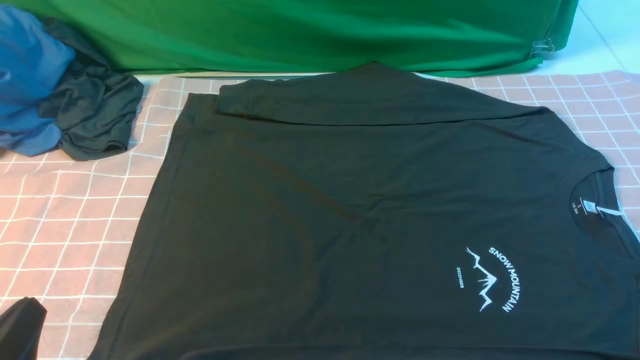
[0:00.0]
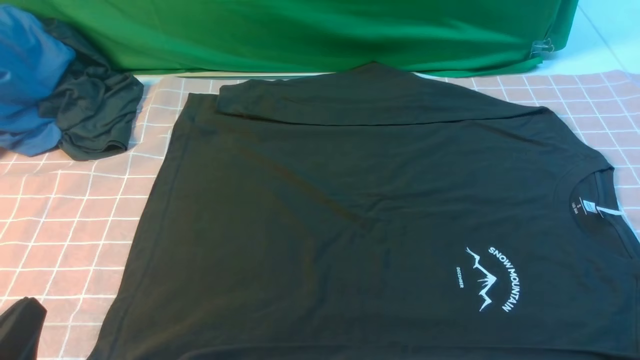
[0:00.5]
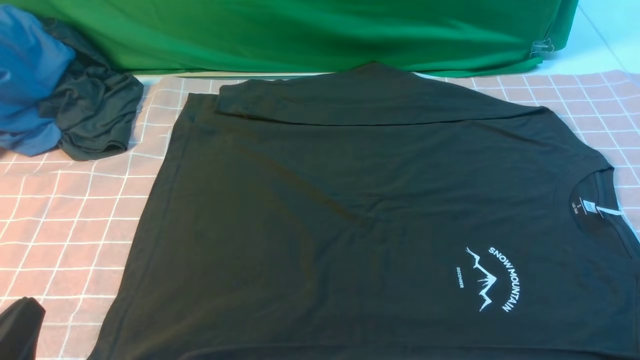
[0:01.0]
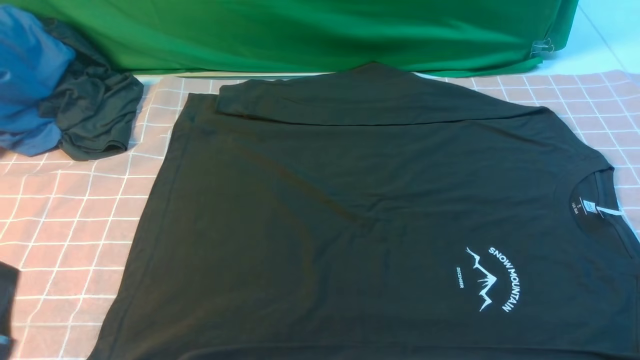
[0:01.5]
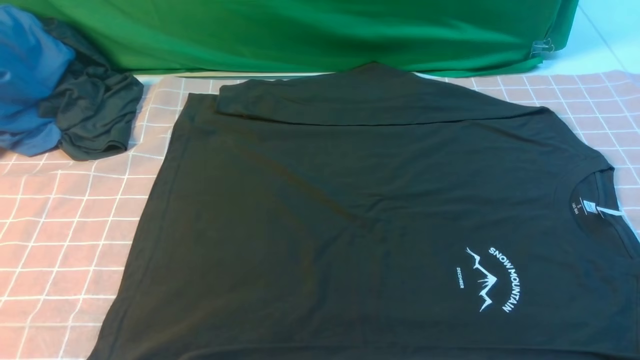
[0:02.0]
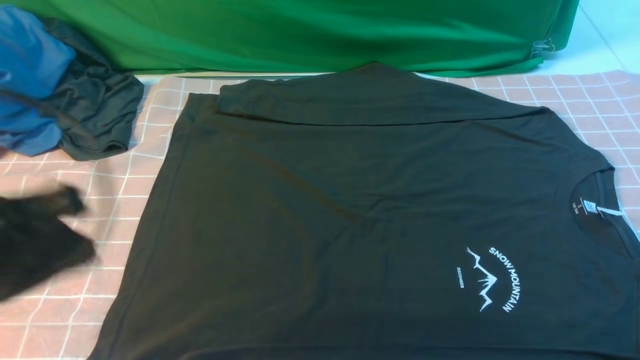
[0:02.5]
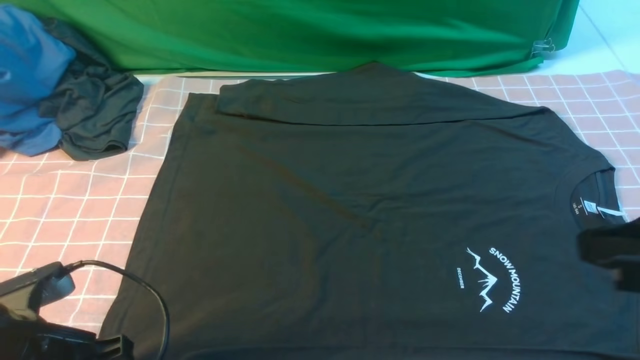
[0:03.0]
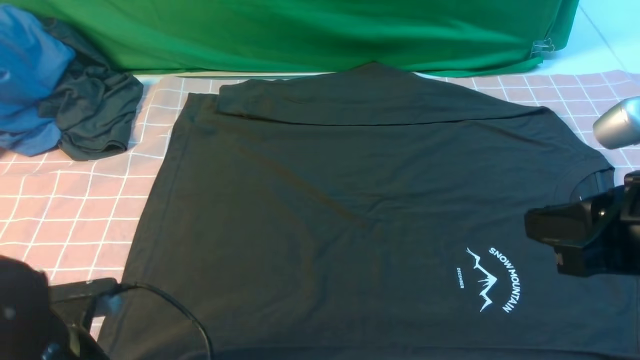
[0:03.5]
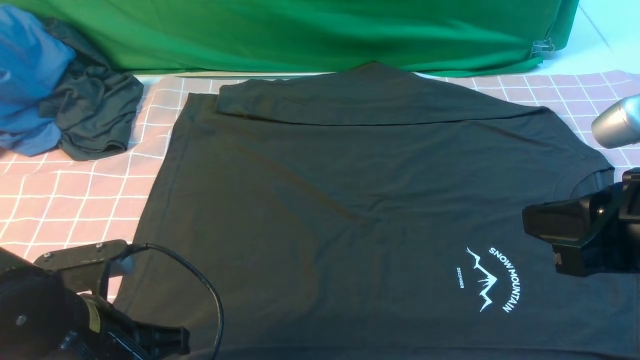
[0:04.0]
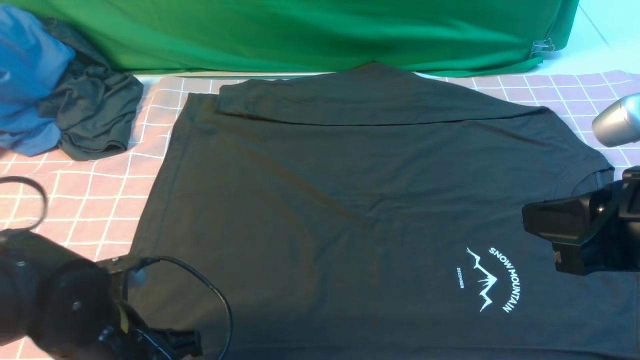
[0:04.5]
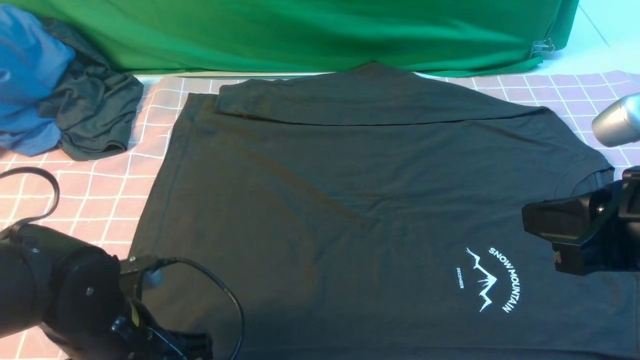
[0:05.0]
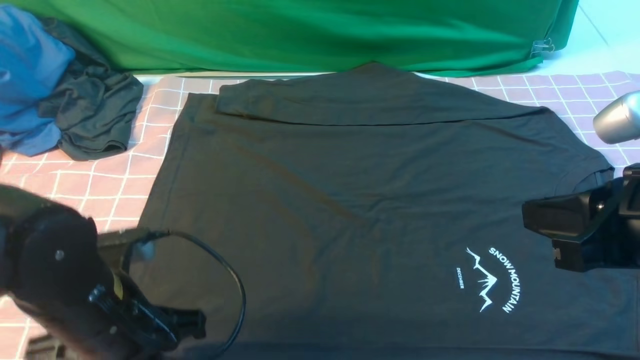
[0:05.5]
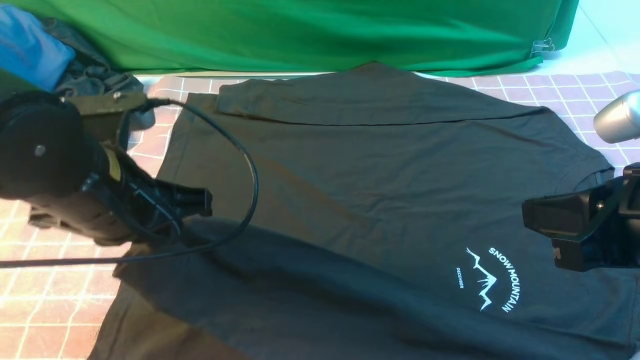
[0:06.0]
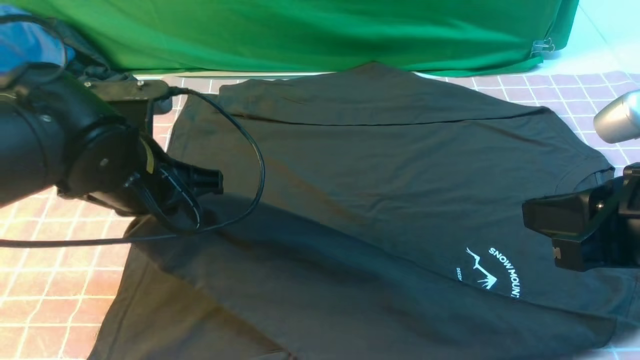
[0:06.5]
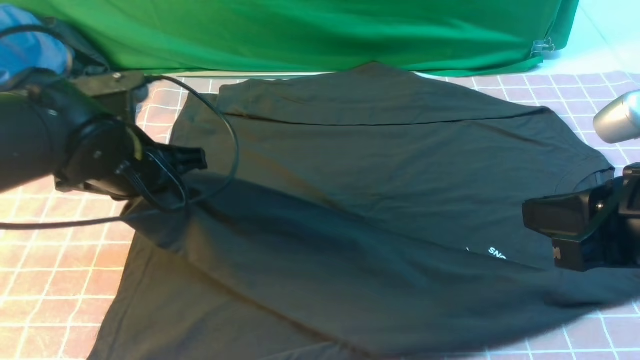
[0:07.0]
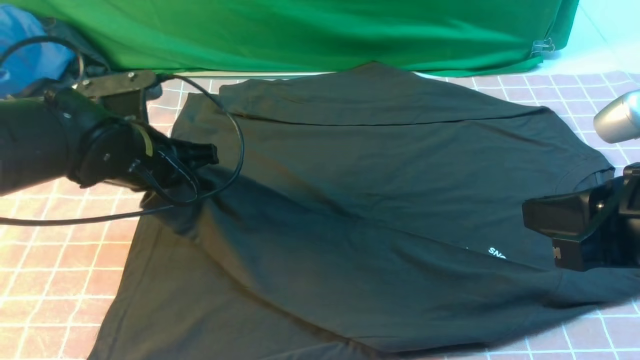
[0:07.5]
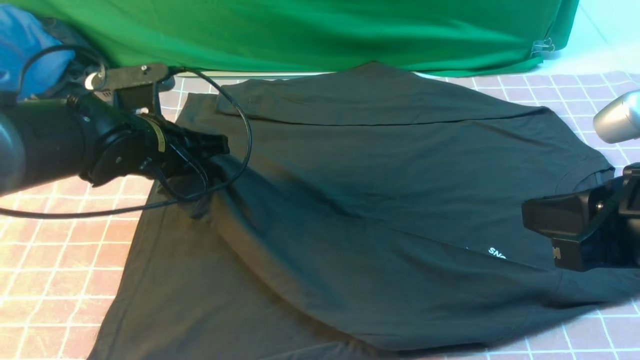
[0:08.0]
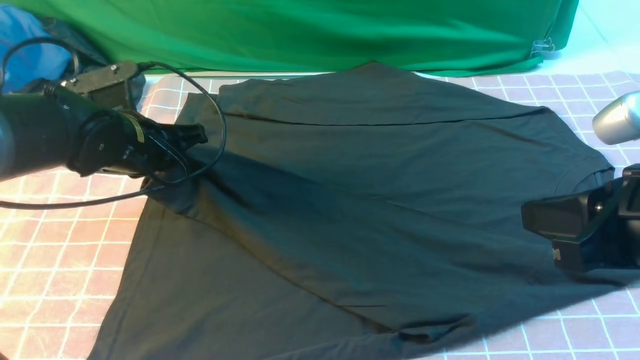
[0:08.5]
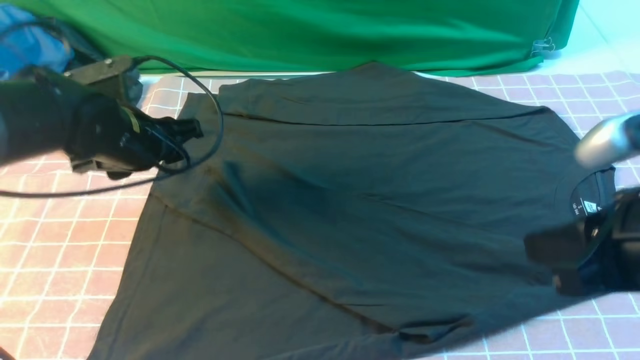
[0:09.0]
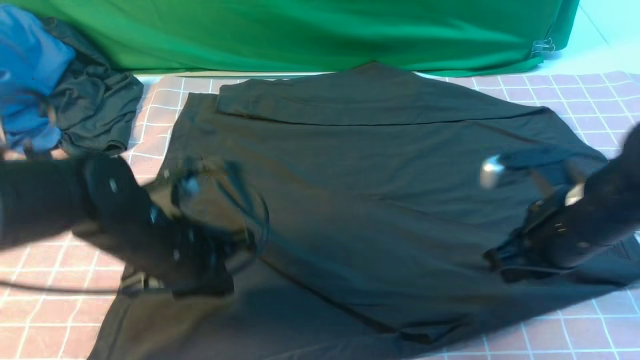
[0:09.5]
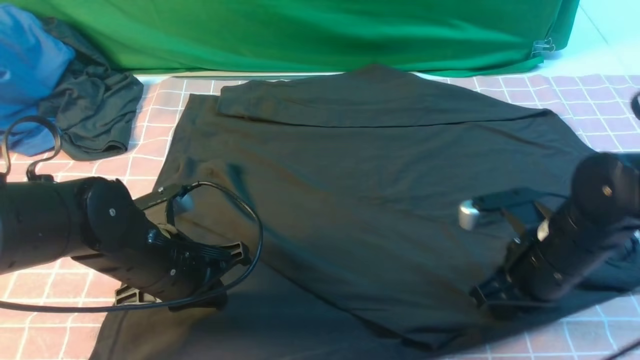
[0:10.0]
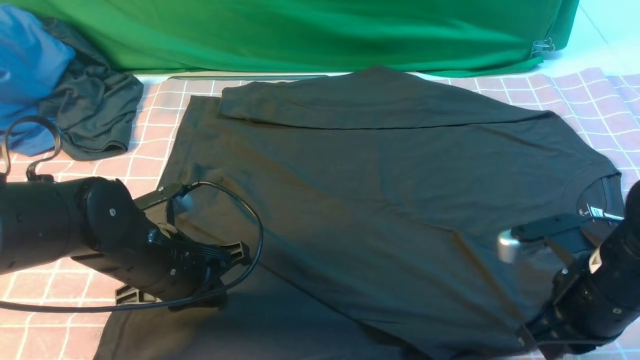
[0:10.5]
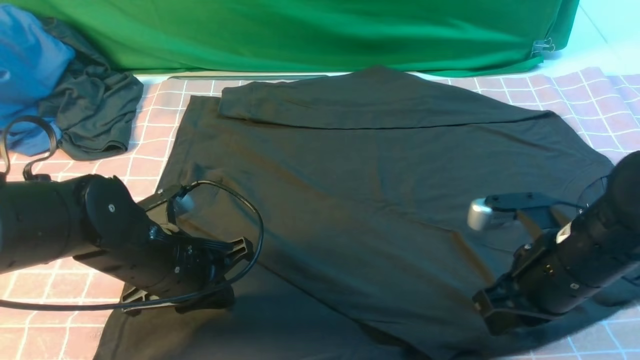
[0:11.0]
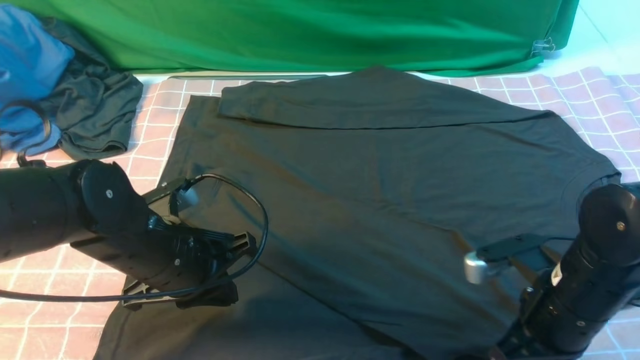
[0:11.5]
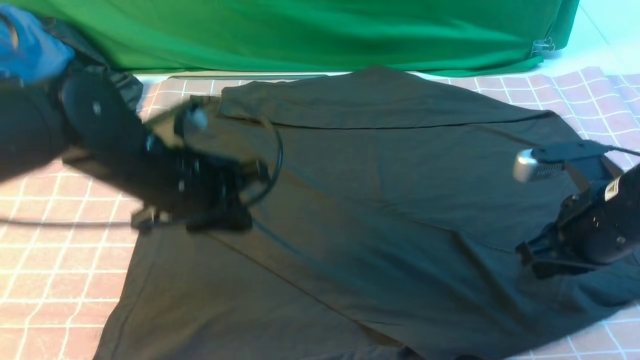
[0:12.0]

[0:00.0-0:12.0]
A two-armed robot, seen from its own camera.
Step, 0:00.0 to 0:05.0: use the left arm to clamp the cuff closest to it.
Step, 0:05.5 to 0:08.5: use the left arm to drag and place the cuff at the centered position on the left edge of the fabric.
0:00.0 to 0:02.0: The left gripper is displaced upward by about 10 cm.
0:02.0 to 0:04.0: The right gripper moves forward, upward and to the left, approximately 15 cm, and closes. The left gripper moves forward, downward and to the right, about 15 cm, and opens its fingers.
0:04.0 to 0:06.0: The left gripper heads upward and forward, covering some 10 cm, and opens and closes again.
0:06.0 to 0:08.0: The left gripper heads forward and downward, covering roughly 10 cm.
0:08.0 to 0:10.0: The right gripper moves downward and forward, about 20 cm. The left gripper travels backward and downward by about 10 cm, and opens and closes again.
0:10.0 to 0:12.0: The right gripper travels upward by about 5 cm; the left gripper goes about 10 cm upward and forward.

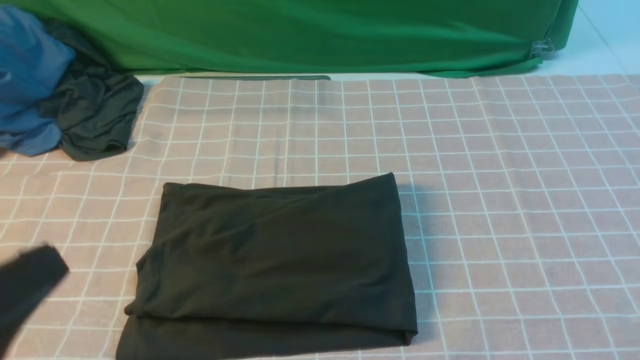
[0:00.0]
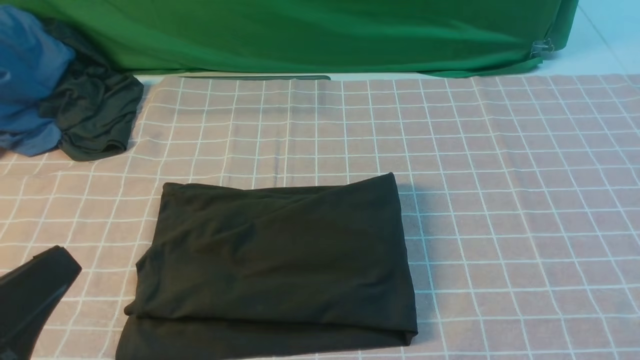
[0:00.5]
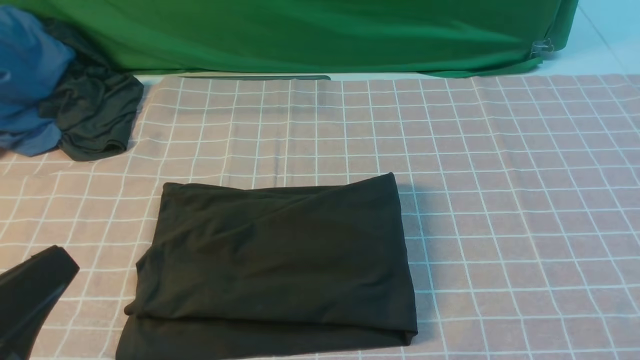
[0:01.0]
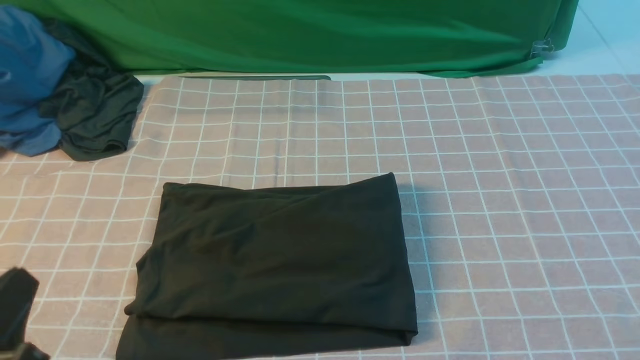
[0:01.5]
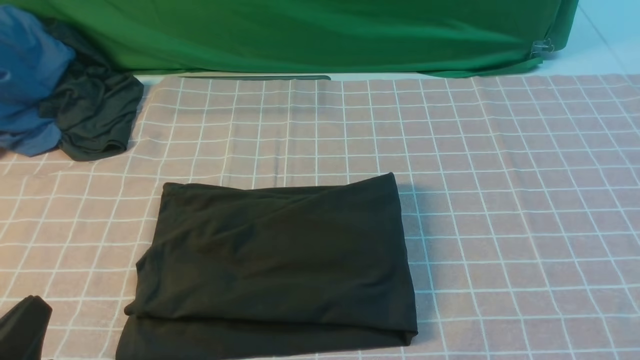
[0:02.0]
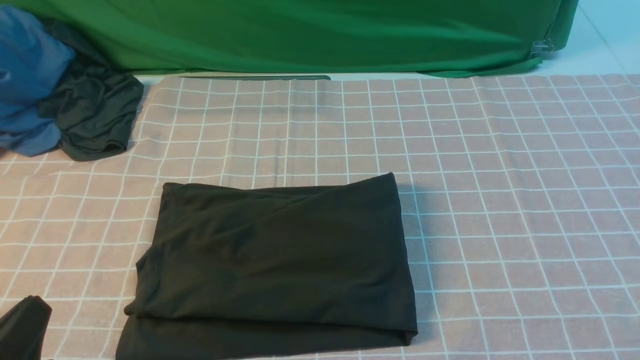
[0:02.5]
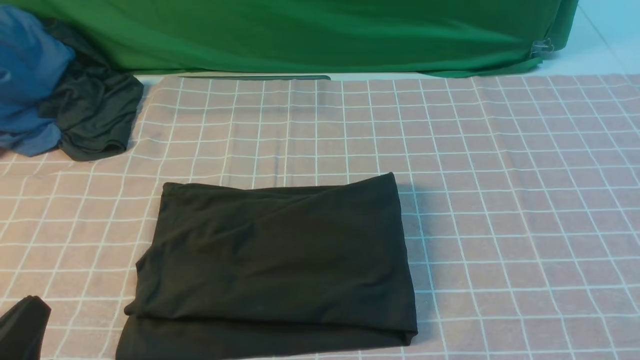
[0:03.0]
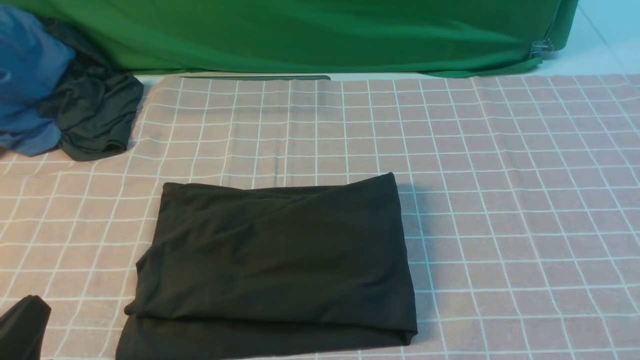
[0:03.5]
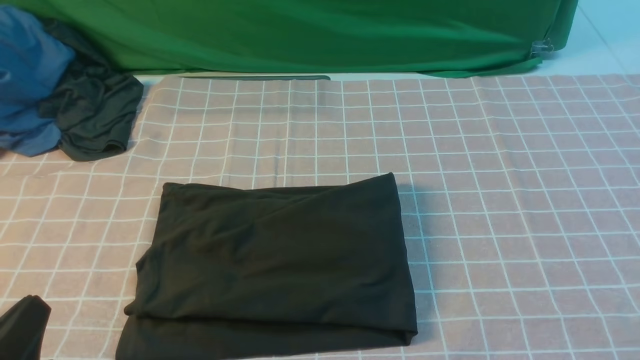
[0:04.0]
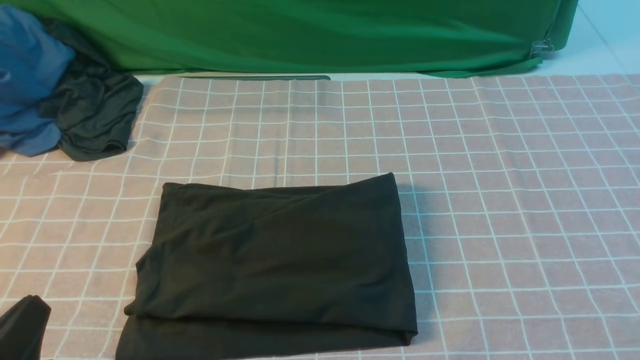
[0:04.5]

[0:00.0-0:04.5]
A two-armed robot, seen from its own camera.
0:00.0 to 0:02.0: The left gripper goes roughly 15 cm downward.

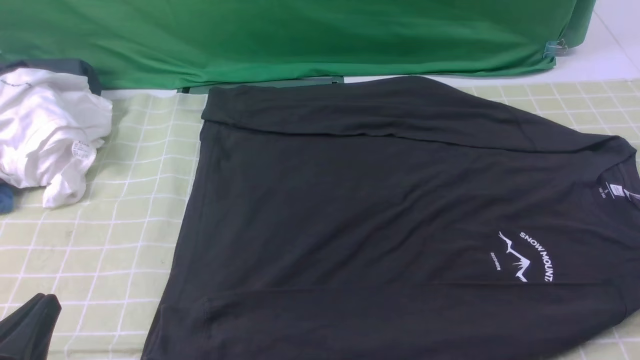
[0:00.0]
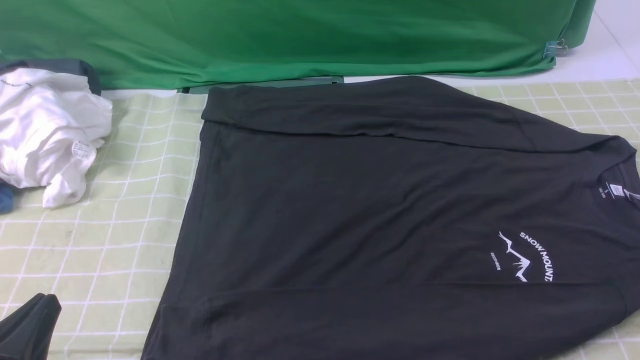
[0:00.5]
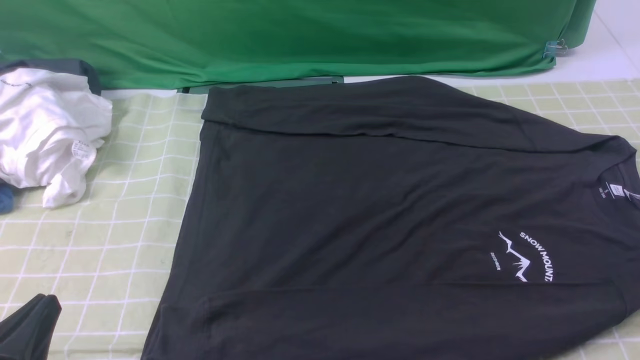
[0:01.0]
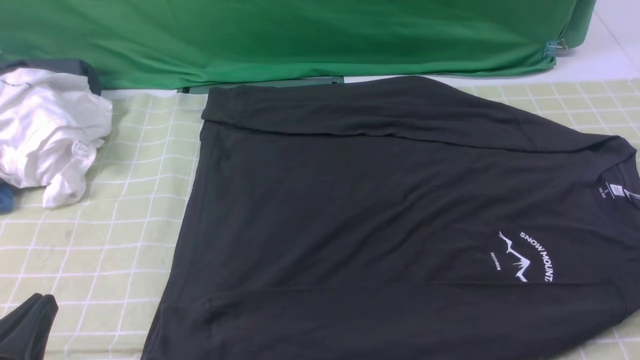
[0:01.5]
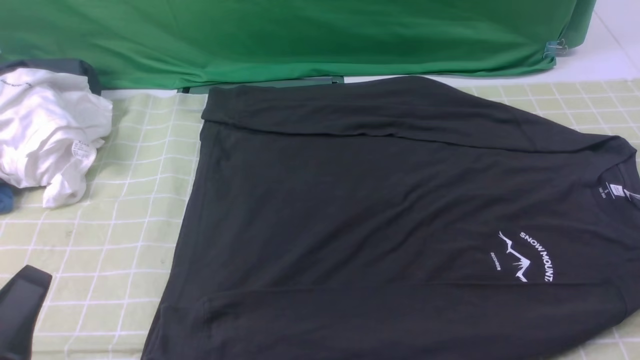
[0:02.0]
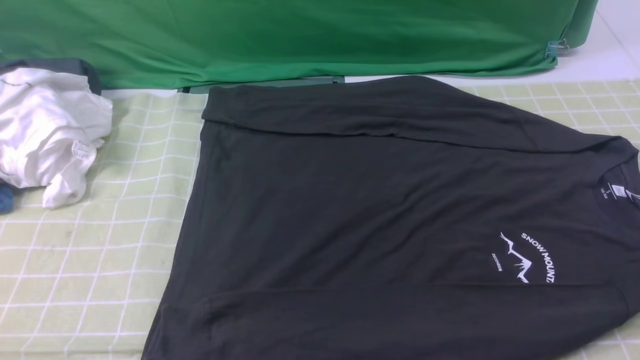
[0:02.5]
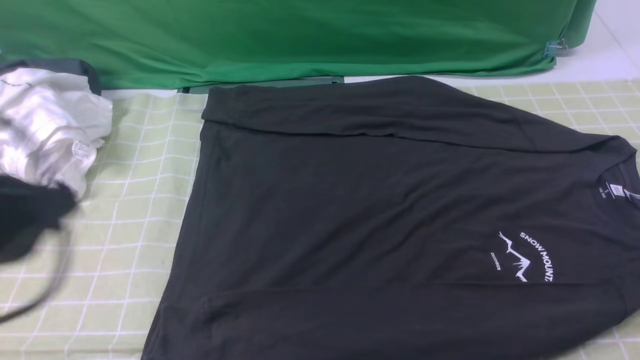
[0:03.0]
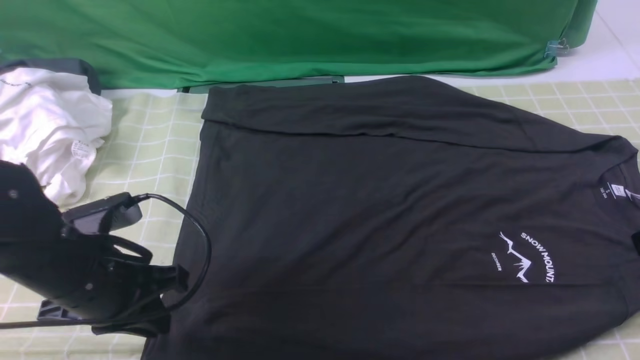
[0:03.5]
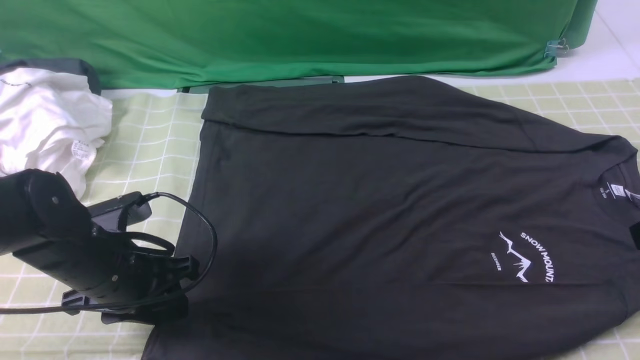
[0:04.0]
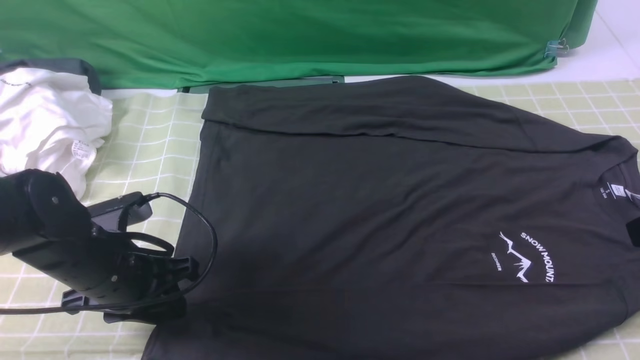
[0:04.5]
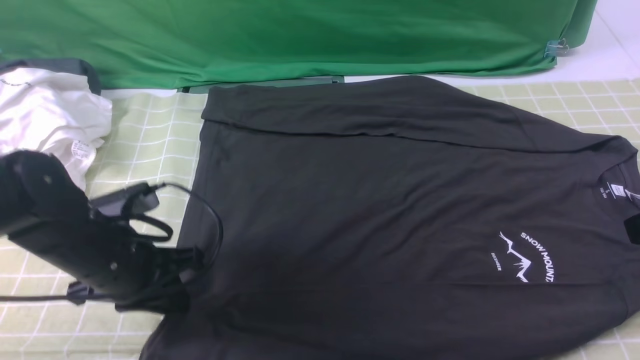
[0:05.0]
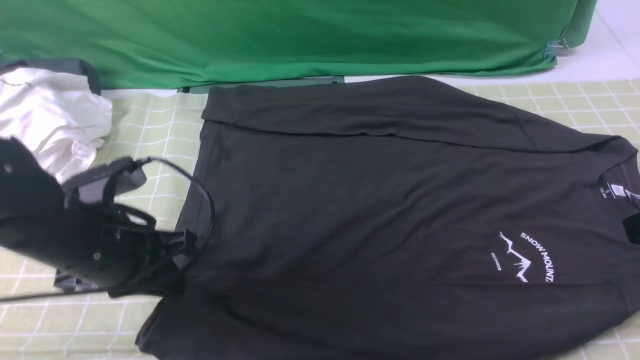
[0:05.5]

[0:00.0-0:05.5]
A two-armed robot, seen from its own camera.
Step, 0:00.0 to 0:05.0: use the left arm to clamp the cuff closest to it.
0:02.0 to 0:03.5: The right gripper travels forward and upward by roughly 15 cm, and closes its fingers. Meanwhile the left gripper goes approximately 15 cm forward.
0:03.5 to 0:05.5: The left gripper opens and closes again.
